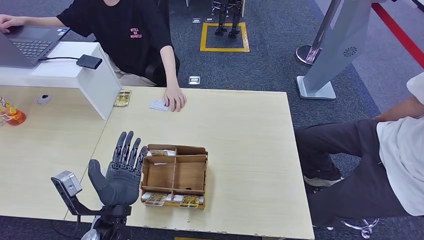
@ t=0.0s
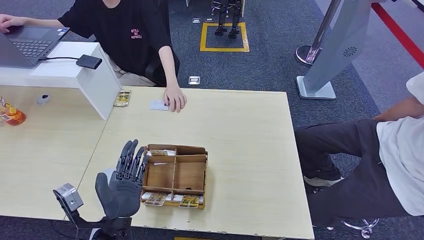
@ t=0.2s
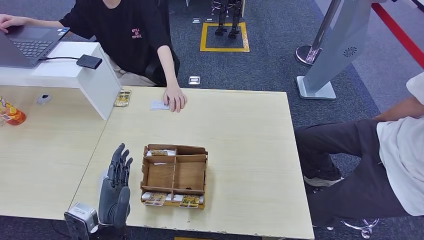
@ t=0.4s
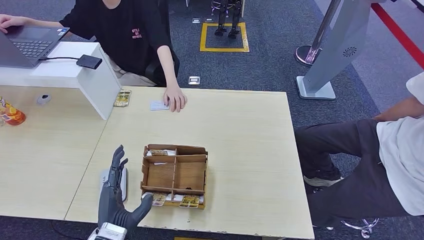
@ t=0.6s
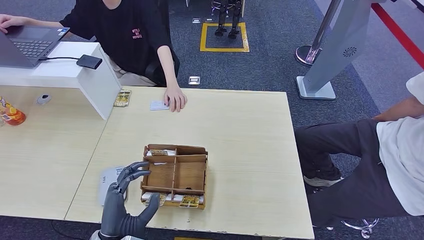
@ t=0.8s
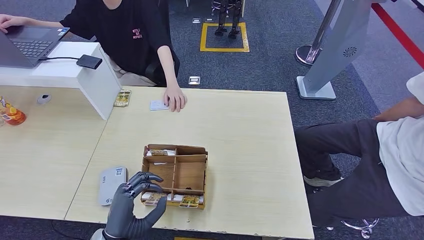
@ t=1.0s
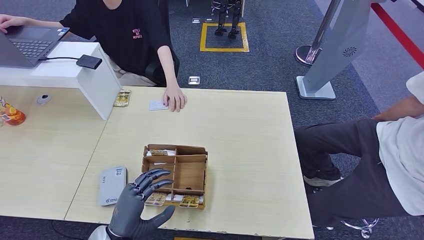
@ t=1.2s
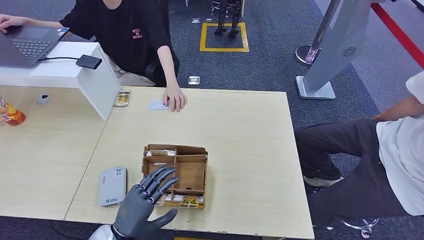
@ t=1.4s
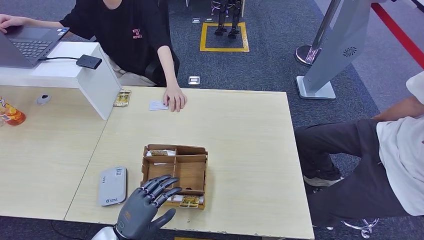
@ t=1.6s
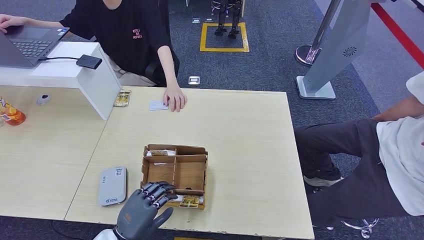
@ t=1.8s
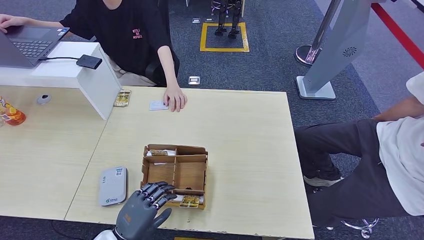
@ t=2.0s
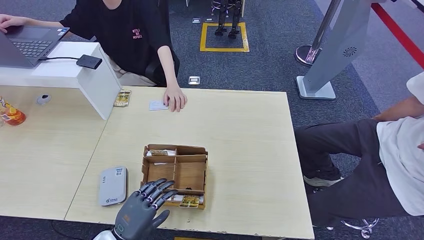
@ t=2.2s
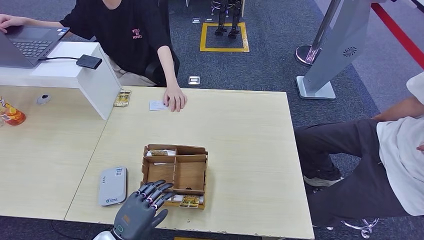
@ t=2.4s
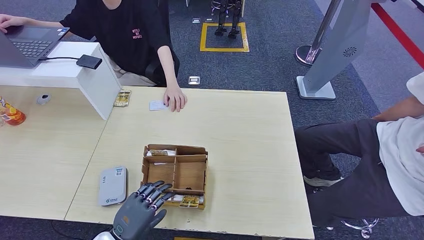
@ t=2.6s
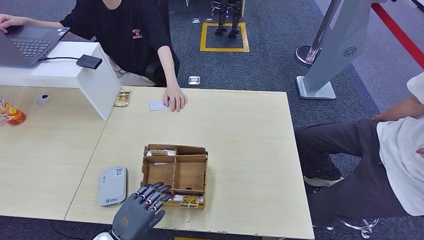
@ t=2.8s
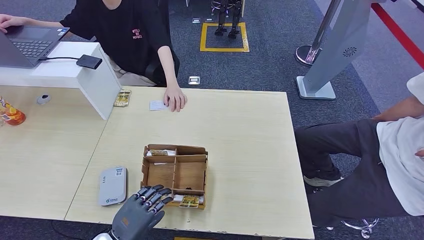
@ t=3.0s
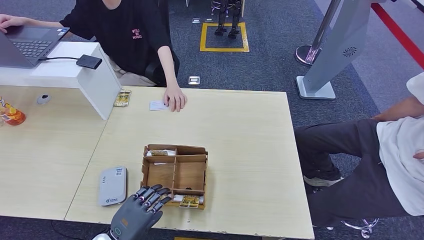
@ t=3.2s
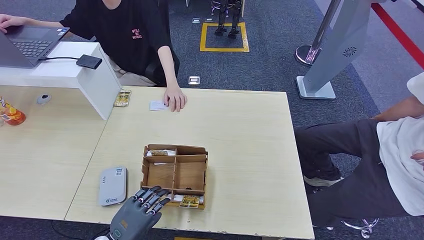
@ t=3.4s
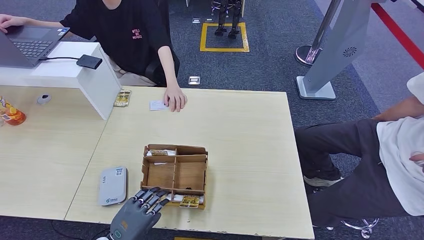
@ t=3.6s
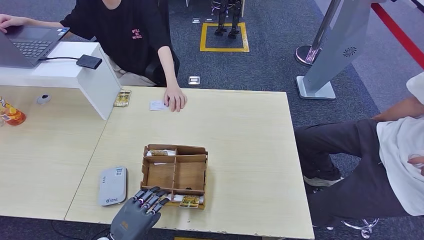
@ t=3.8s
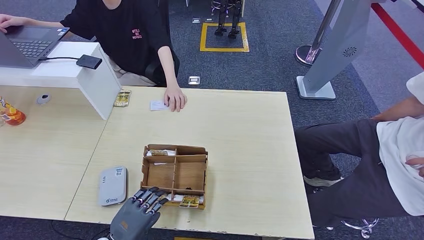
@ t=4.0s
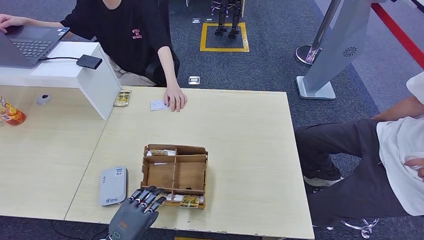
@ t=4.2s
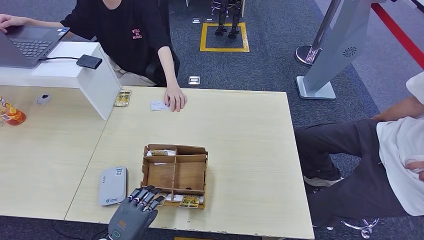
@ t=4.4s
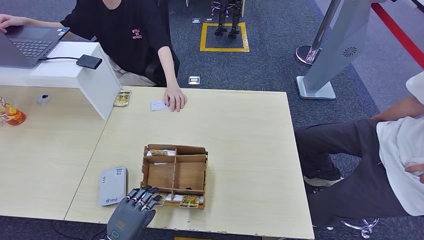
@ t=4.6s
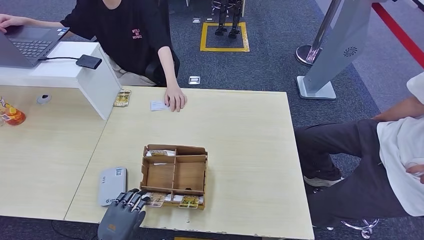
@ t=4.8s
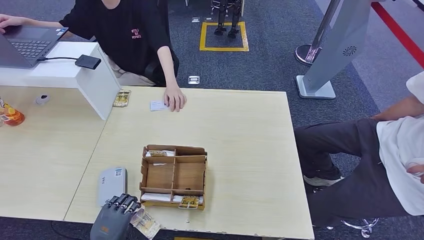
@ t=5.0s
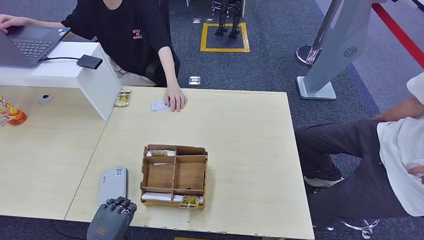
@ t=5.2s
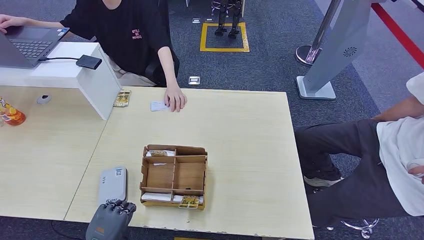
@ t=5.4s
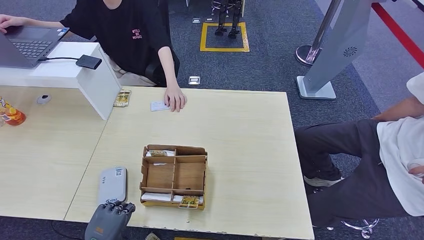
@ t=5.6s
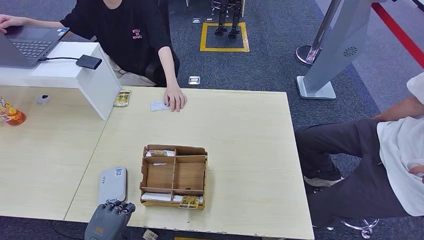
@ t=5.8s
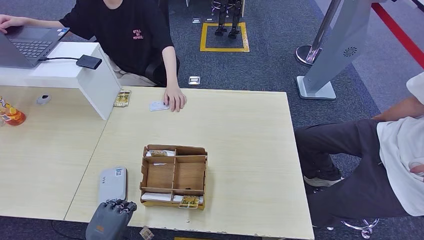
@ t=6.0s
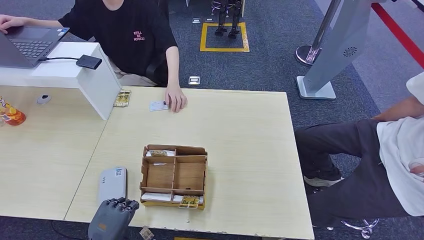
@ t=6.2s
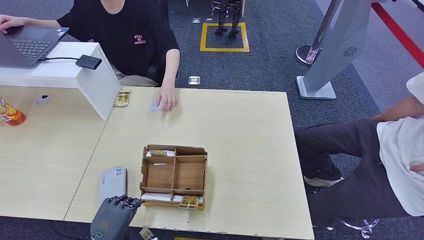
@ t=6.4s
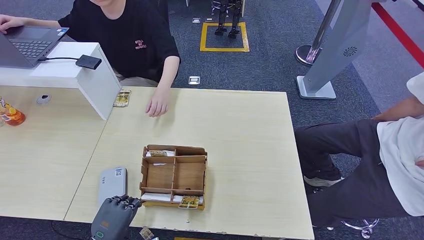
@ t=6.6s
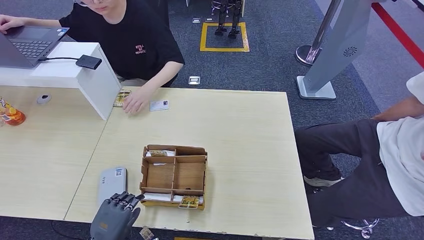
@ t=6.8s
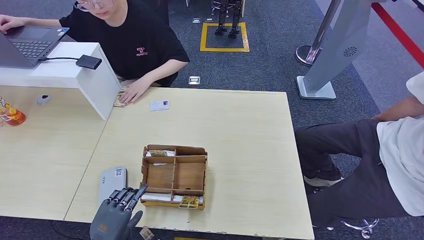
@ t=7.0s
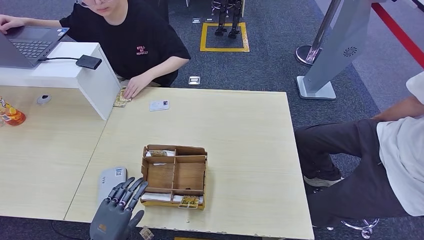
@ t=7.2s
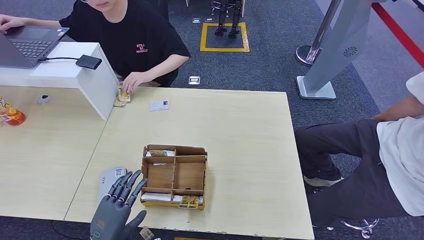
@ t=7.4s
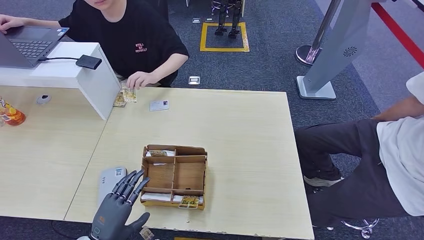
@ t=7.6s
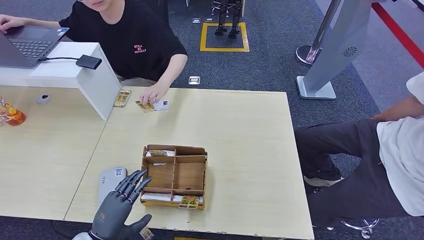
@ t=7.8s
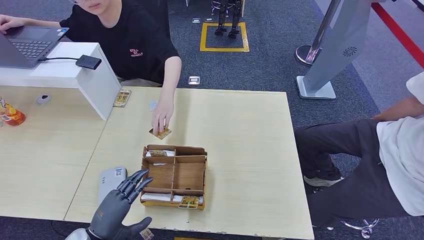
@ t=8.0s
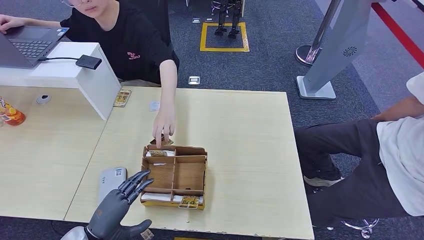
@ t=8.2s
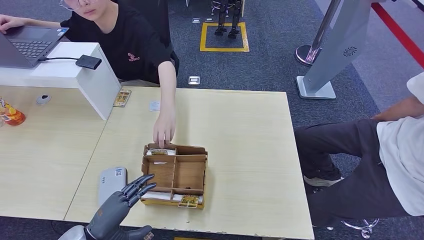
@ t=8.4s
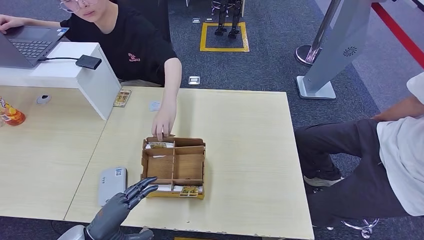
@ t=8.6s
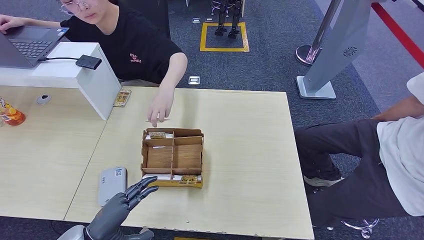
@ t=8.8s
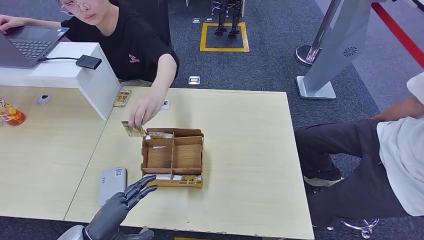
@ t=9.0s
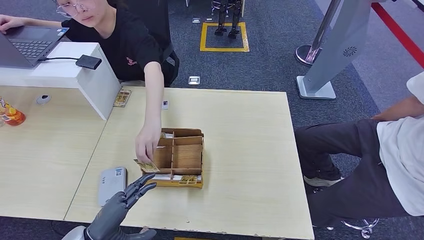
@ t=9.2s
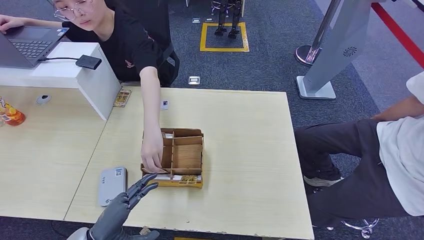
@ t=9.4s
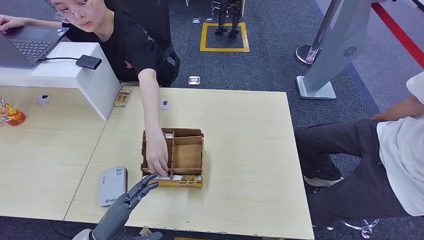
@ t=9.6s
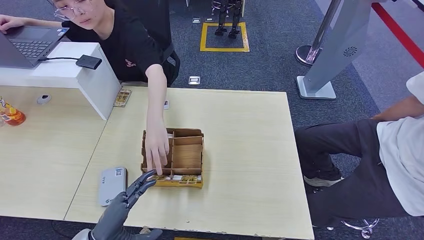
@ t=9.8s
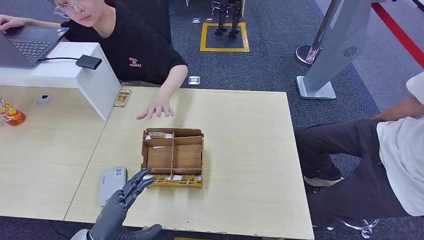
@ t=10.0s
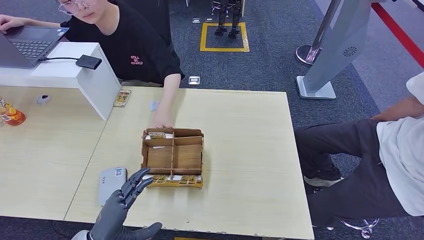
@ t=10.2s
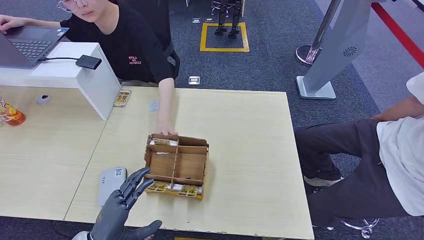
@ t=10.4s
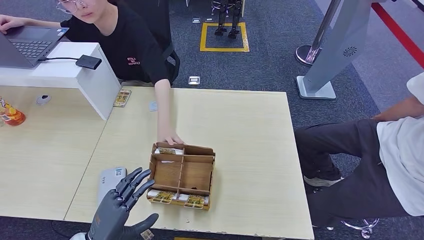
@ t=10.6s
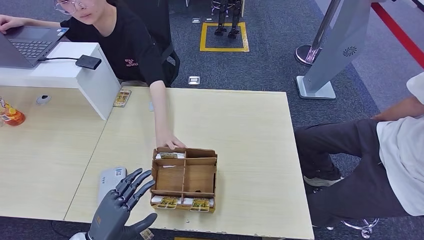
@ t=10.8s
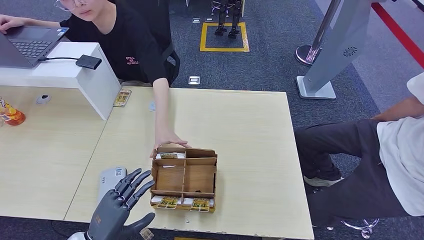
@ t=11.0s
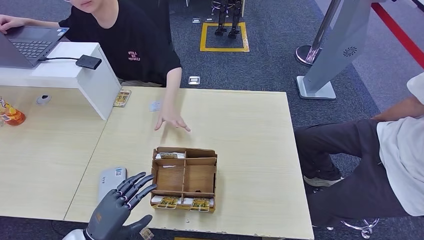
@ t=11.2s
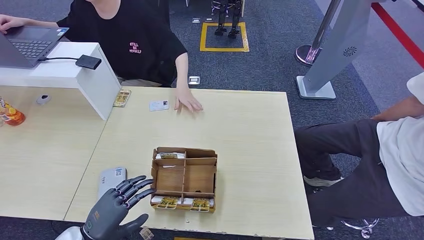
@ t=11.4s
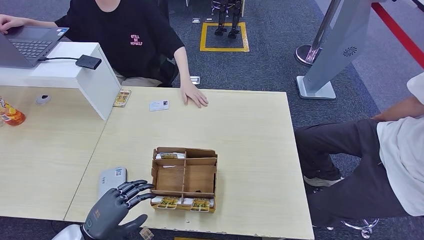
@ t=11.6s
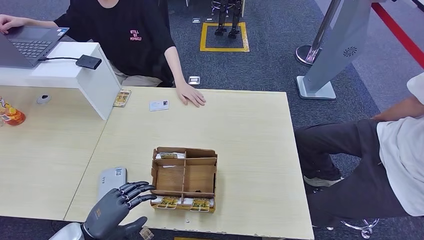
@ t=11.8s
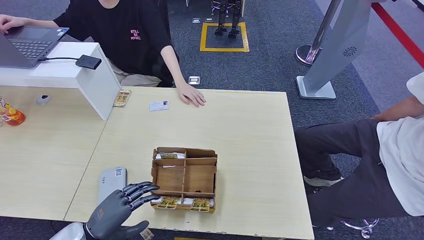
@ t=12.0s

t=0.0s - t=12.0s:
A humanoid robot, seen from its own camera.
t=0.0s - t=1.6s: The left hand goes approximately 5 cm downward.
t=1.6s - t=3.0s: The hands stay close to where they were, moving slightly.
t=3.0s - t=4.4s: The hands make only small movements.
t=4.4s - t=6.0s: The left hand moves about 5 cm.
t=9.0s - t=10.4s: The hands move only a little.
t=10.4s - t=12.0s: The left hand shifts about 5 cm to the left.

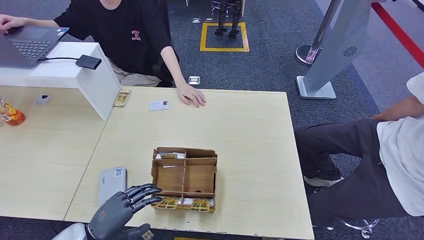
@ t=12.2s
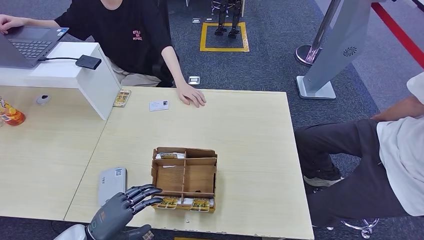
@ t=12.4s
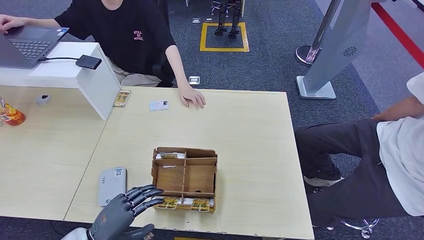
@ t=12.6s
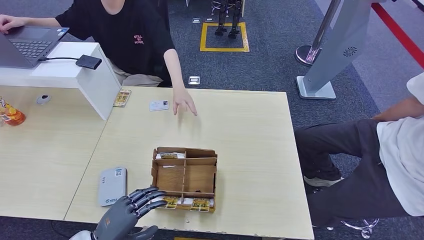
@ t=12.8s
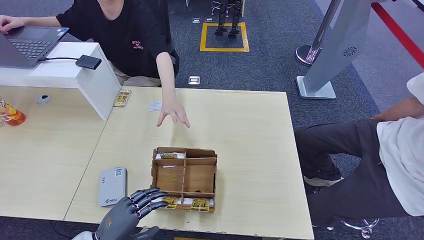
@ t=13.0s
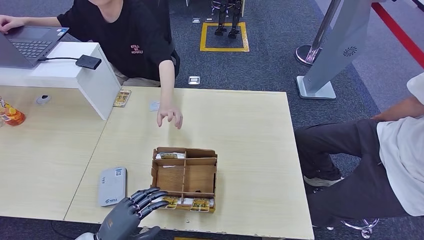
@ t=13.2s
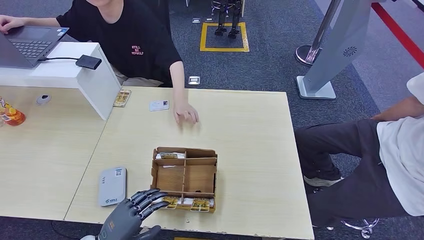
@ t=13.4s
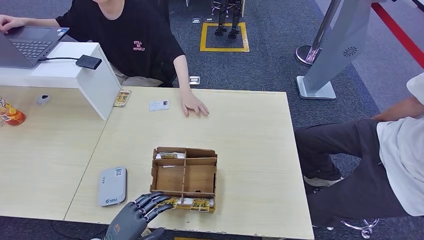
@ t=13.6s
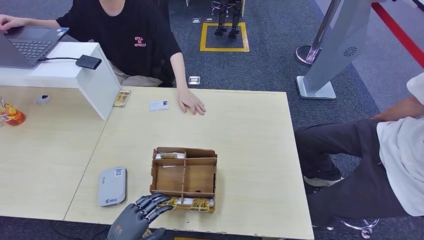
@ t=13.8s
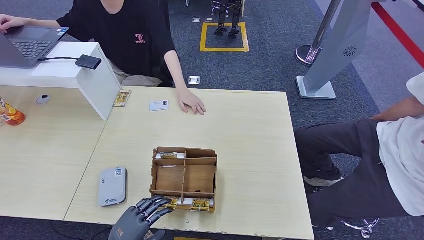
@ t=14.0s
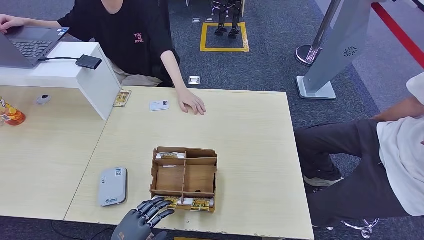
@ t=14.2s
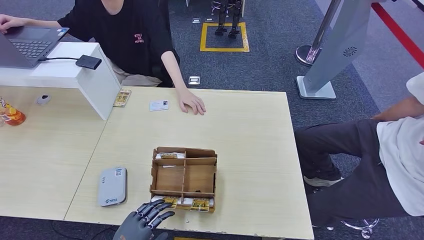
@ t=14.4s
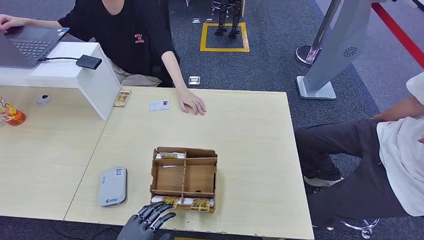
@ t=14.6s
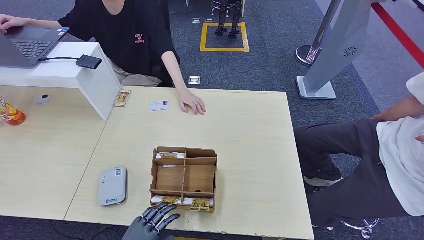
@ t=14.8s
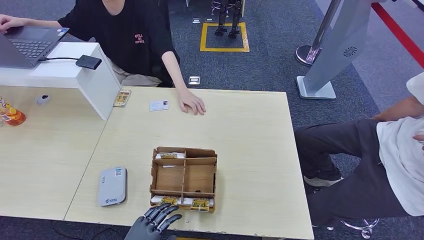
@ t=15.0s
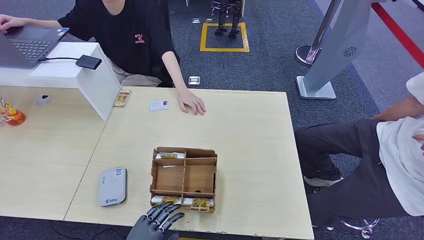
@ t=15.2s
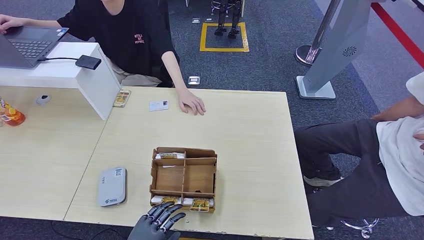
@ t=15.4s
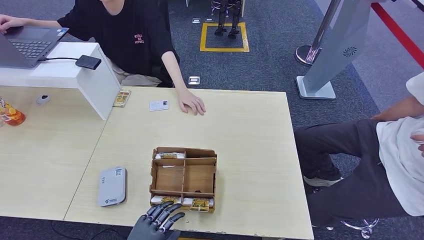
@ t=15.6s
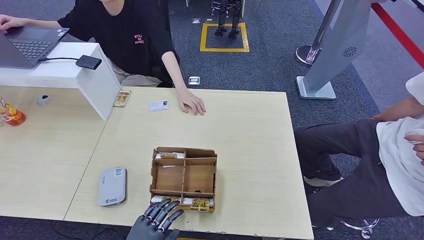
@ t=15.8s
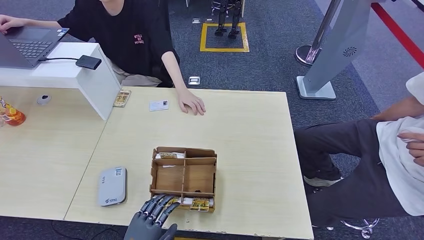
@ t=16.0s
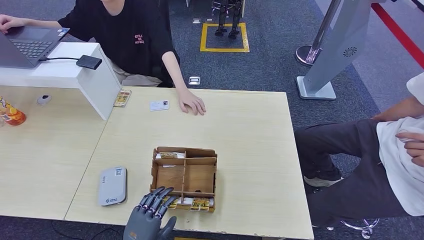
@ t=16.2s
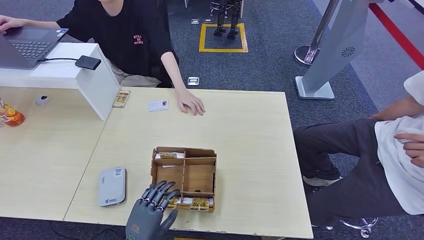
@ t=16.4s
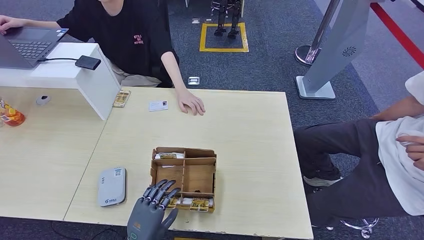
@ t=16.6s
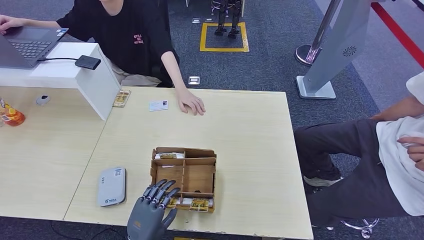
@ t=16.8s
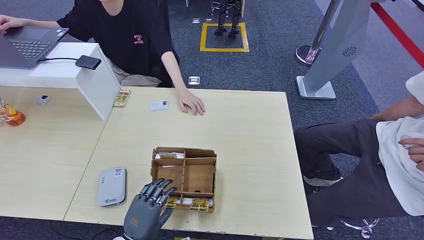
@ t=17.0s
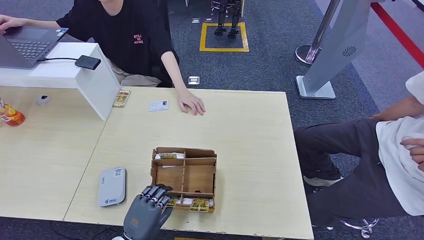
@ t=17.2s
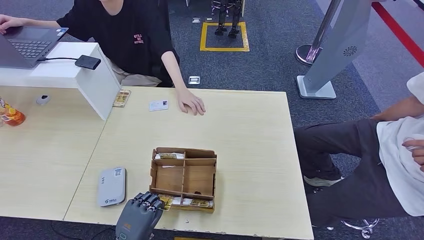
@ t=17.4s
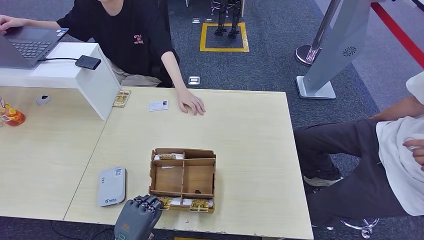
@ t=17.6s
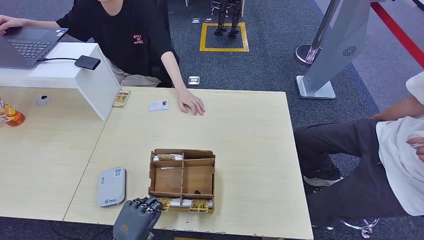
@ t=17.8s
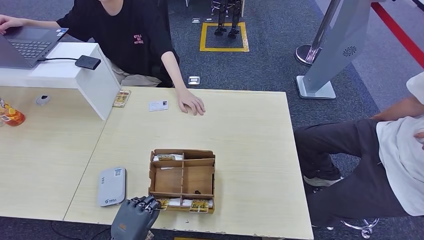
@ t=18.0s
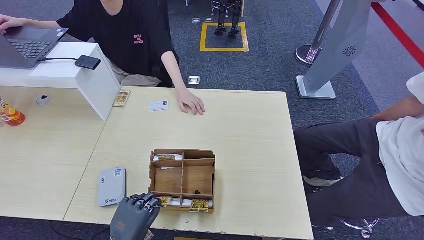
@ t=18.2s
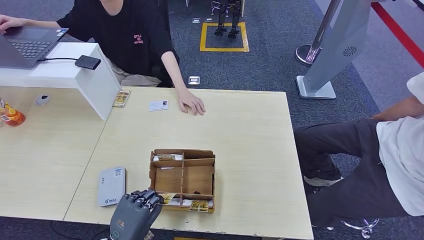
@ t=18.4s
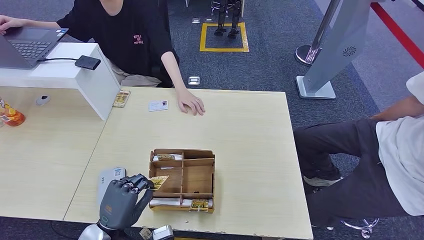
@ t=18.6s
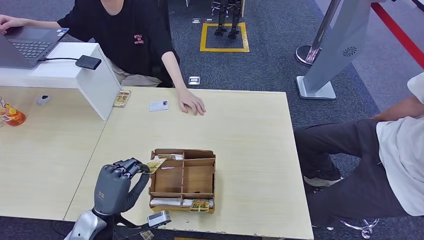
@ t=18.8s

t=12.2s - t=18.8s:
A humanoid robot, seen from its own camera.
Step, t=12.2s - t=18.4s: Pick up the room key from the key card box.
t=12.2s - t=13.8s: The left hand shifts by roughly 5 cm.
t=13.8s - t=15.4s: The left hand goes roughly 5 cm to the right.
t=15.4s - t=17.2s: The right hand moves approximately 5 cm.
t=17.2s - t=18.8s: The left hand heads upward and forward, covering approximately 10 cm.
